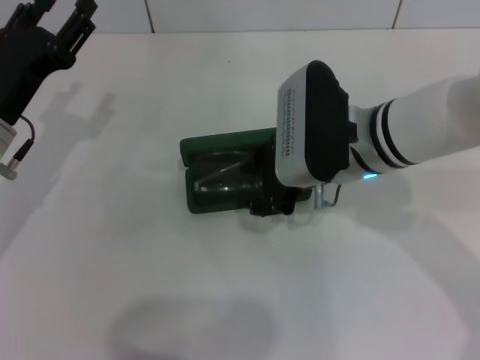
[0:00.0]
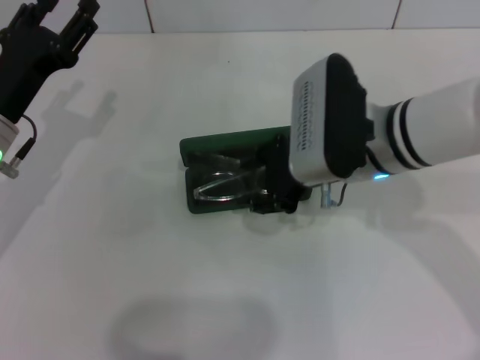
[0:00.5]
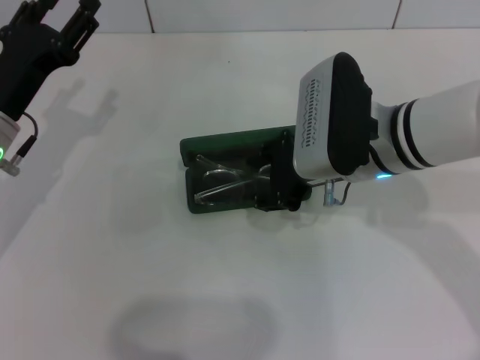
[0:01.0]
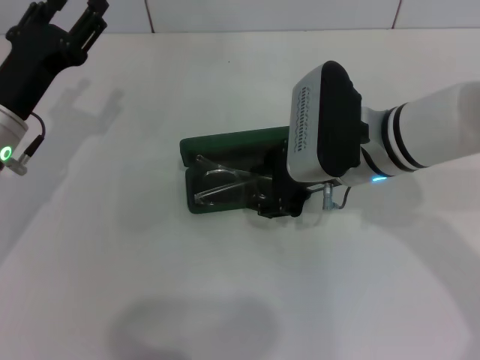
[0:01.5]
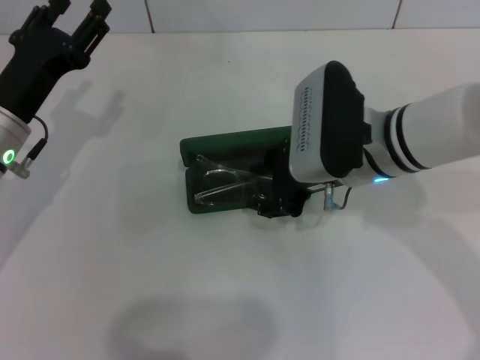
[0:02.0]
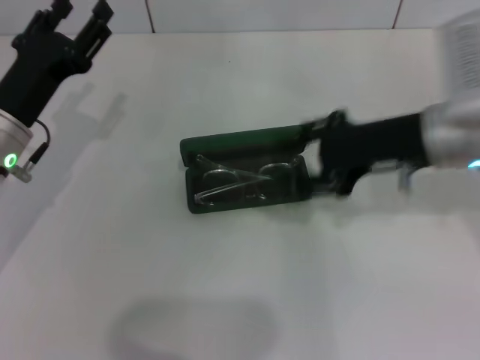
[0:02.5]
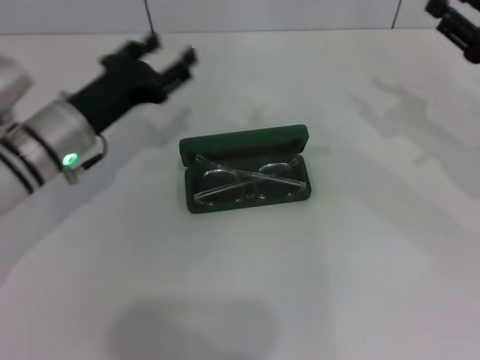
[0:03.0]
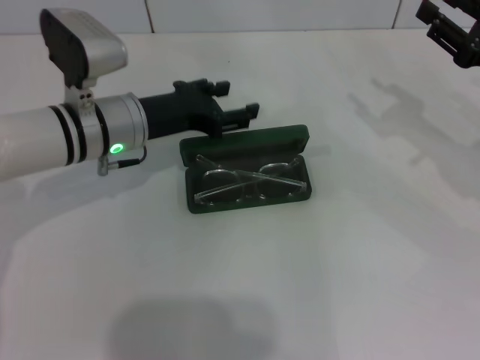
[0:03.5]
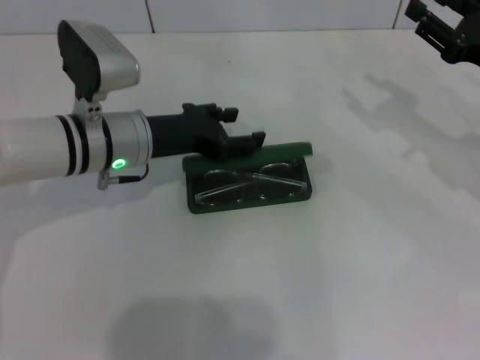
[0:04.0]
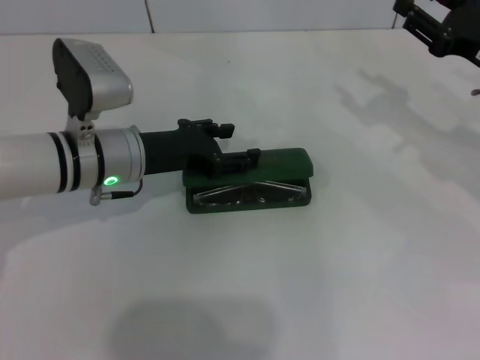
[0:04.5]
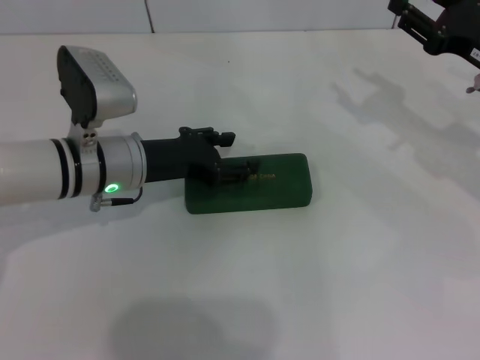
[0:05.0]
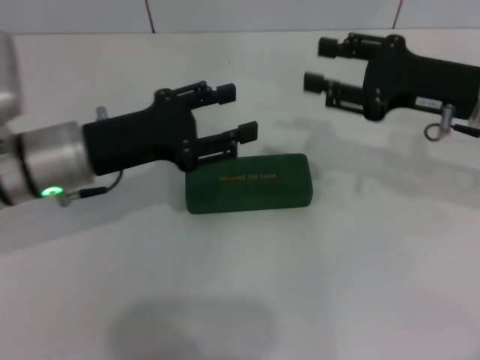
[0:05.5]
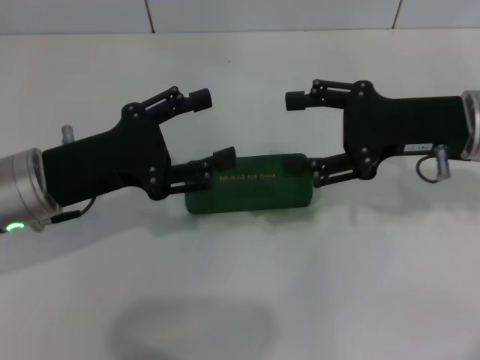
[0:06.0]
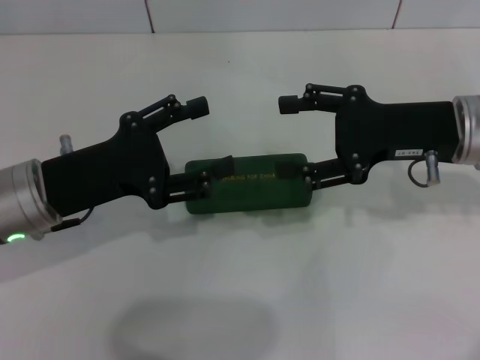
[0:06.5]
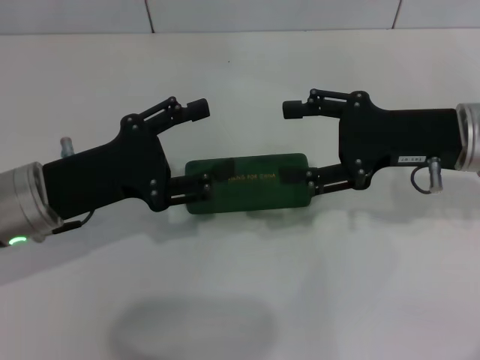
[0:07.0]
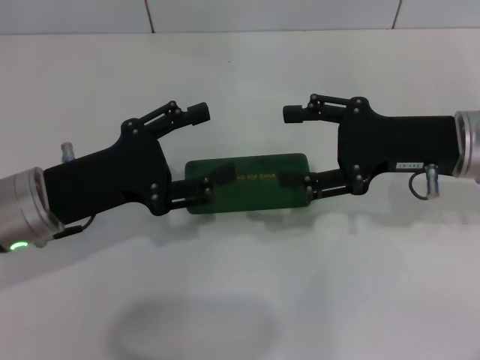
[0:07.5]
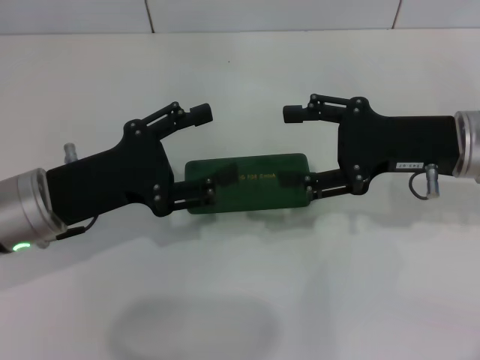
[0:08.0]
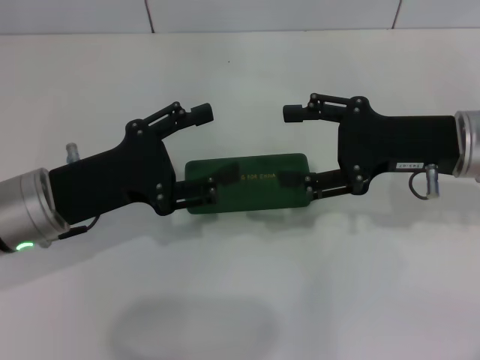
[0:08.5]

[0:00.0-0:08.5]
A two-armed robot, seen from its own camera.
Step, 0:01.0 to 0:04.5: Close the glasses case with your left hand.
0:00.0 to 0:02.0: The grippers make only small movements.
0:02.0 to 0:04.0: The right gripper goes roughly 20 cm to the right; the left gripper travels to the right by some 10 cm.
0:04.0 to 0:06.5: The right gripper moves to the left, roughly 10 cm, and opens. The left gripper heads backward and to the left, covering approximately 10 cm.
0:06.5 to 0:08.5: Both grippers stay about where they are.

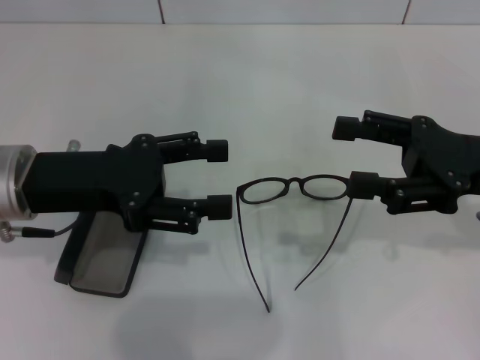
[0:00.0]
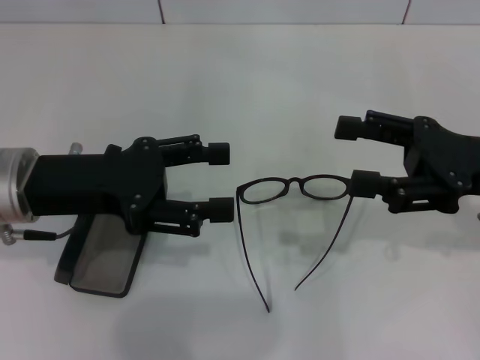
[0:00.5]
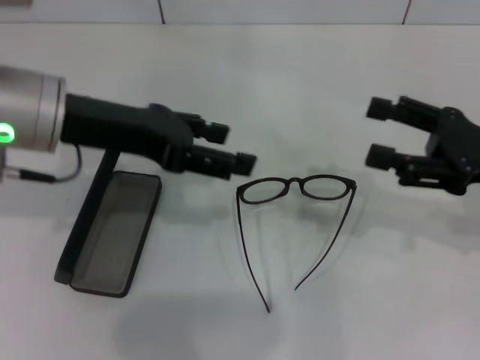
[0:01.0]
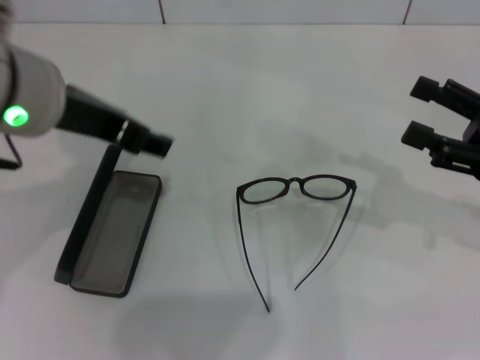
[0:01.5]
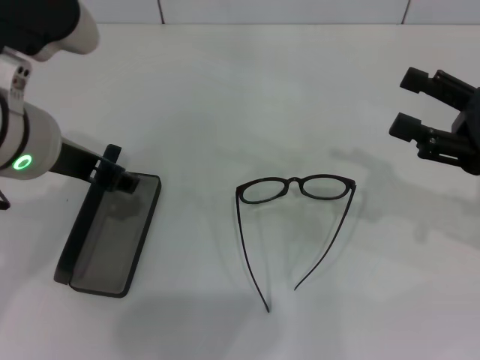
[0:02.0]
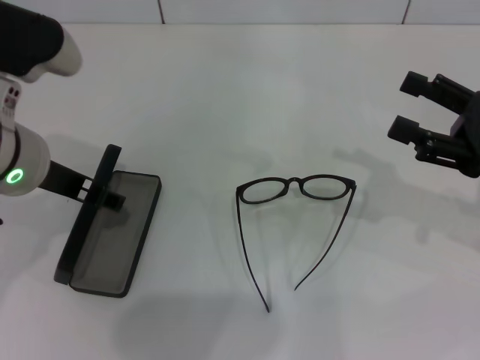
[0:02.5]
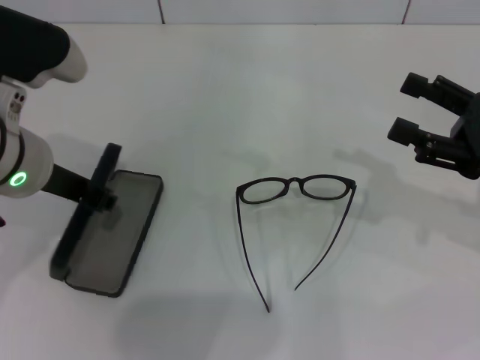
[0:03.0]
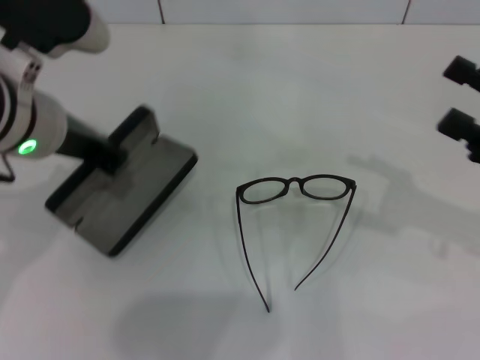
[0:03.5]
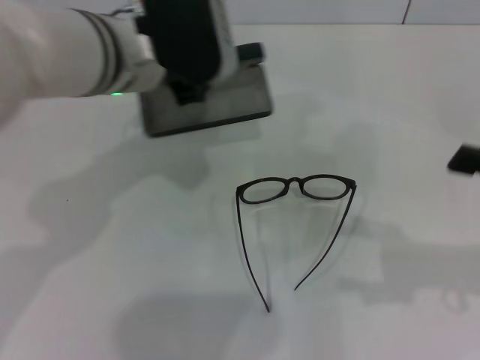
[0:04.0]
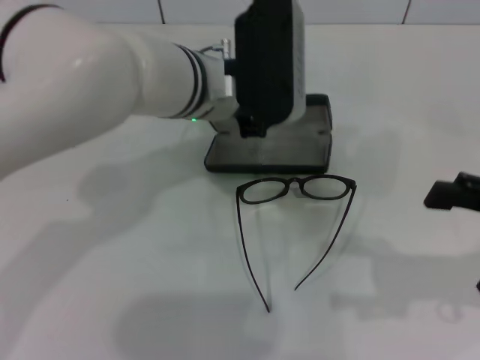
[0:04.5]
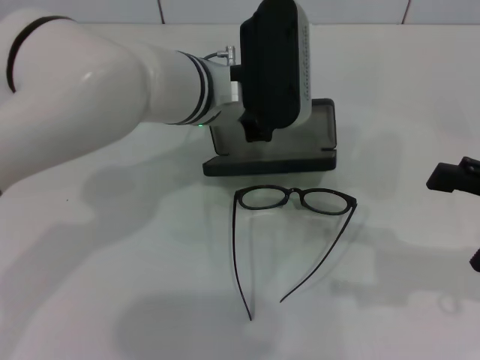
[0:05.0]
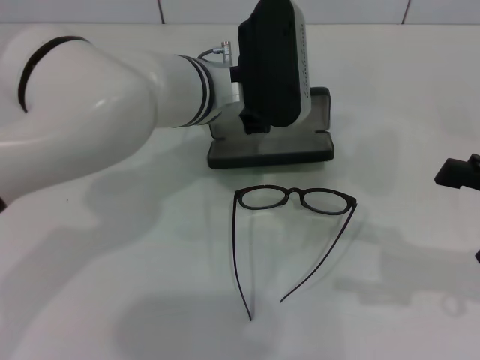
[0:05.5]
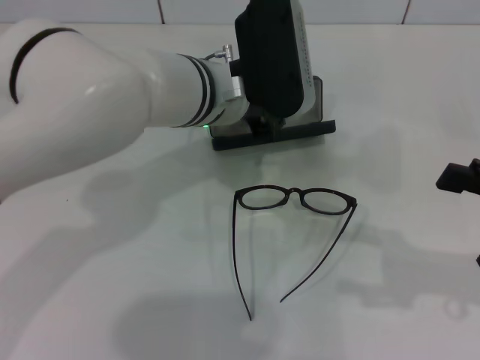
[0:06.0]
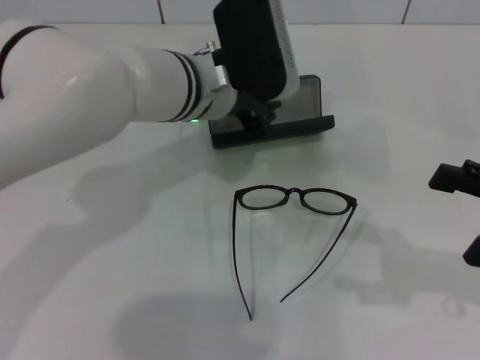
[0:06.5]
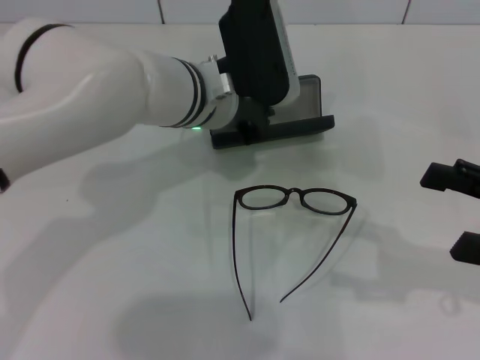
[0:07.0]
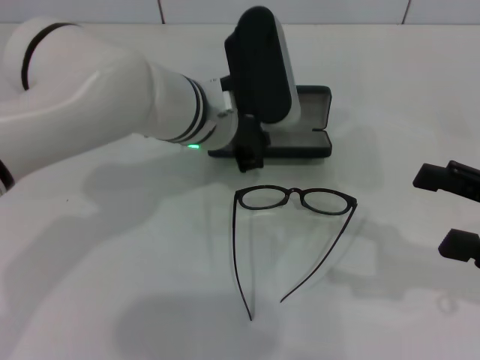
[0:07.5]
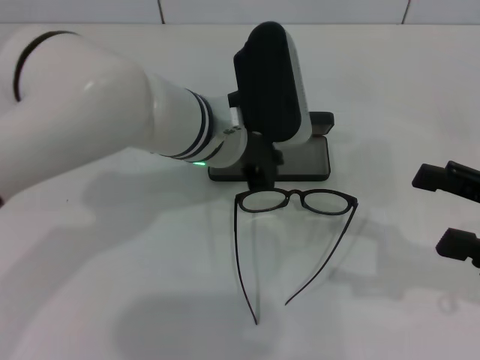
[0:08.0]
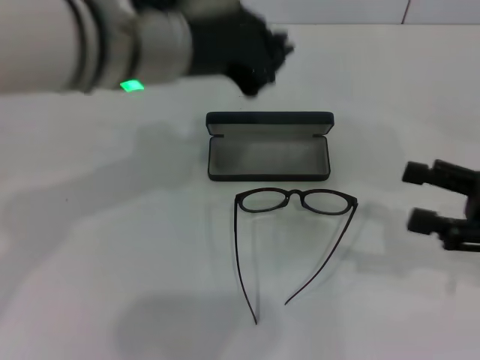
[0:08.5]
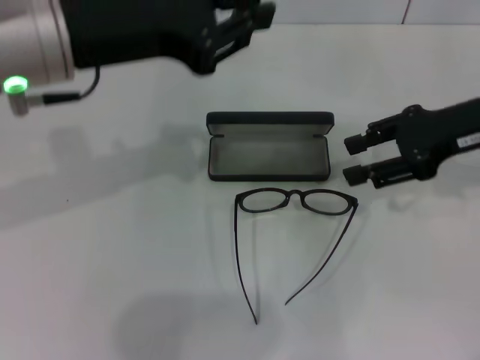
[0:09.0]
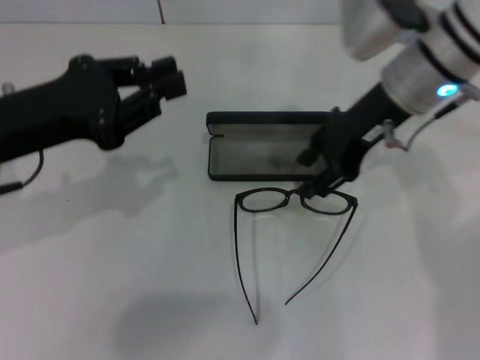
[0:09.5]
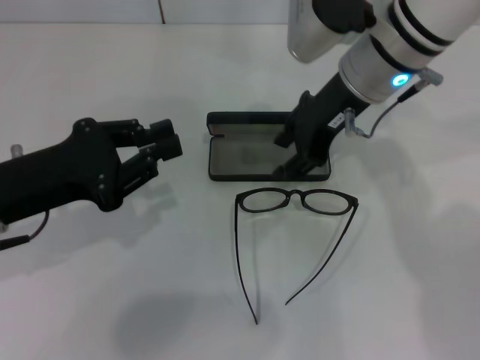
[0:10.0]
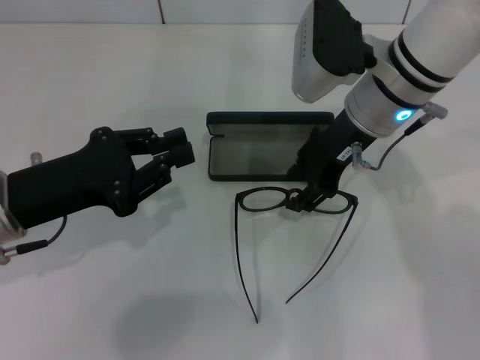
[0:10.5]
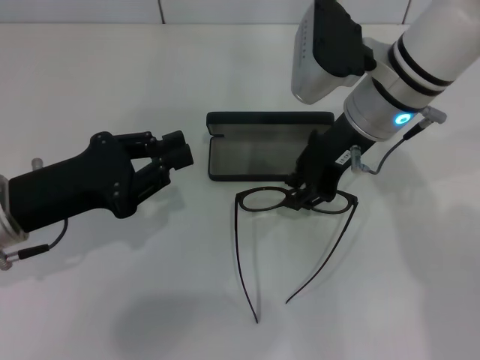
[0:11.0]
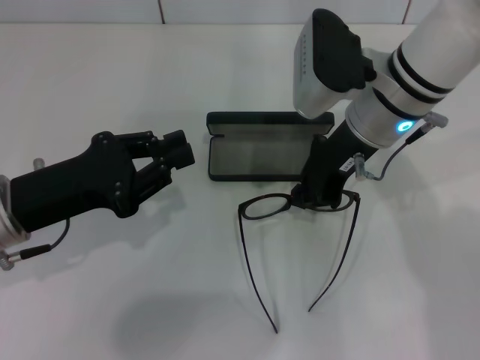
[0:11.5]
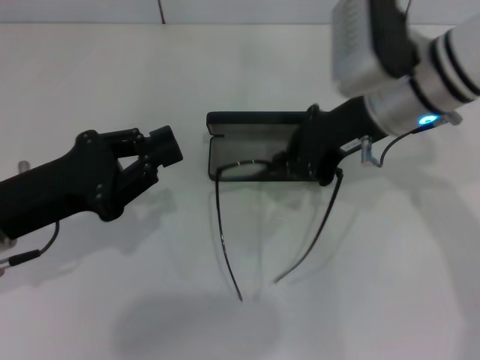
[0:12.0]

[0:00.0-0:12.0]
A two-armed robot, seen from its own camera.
Step, 0:00.0 to 0:03.0: Grab the glasses case with your left hand.
Step, 0:03.5 to 0:07.5: Place the glasses case in the center of the table with your left hand.
Step, 0:08.0 to 0:11.0: Grab the eyeglass frame with your right hand.
0:00.0 to 0:02.0: The left gripper is displaced upward and to the right by approximately 10 cm.
0:02.0 to 0:04.0: The left gripper heads forward and to the right, covering approximately 10 cm, and closes its fingers, while the right gripper moves backward, approximately 5 cm.
0:04.0 to 0:06.0: The left gripper travels to the right and downward by some 10 cm.
0:06.0 to 0:08.0: The grippers move only a little.
0:08.0 to 0:10.0: The right gripper travels to the left and forward by about 25 cm, and closes, while the left gripper travels to the left and backward by approximately 25 cm.
0:10.0 to 0:12.0: The right gripper closes its fingers.

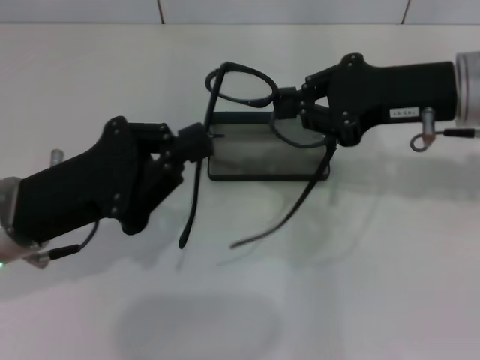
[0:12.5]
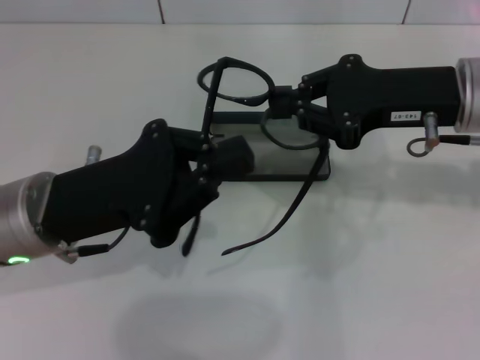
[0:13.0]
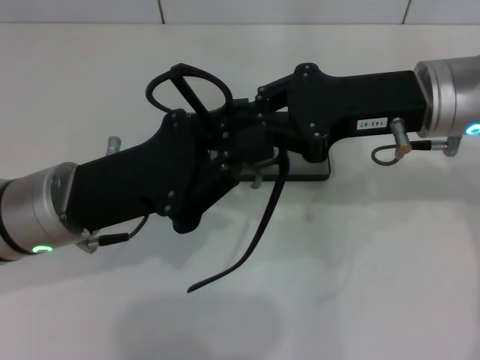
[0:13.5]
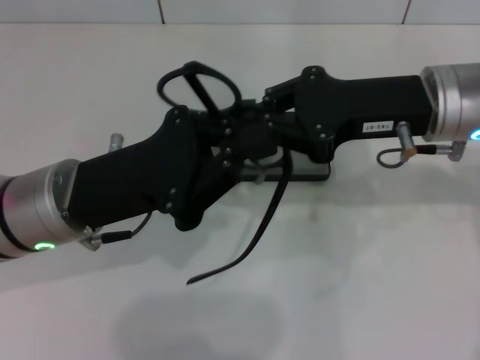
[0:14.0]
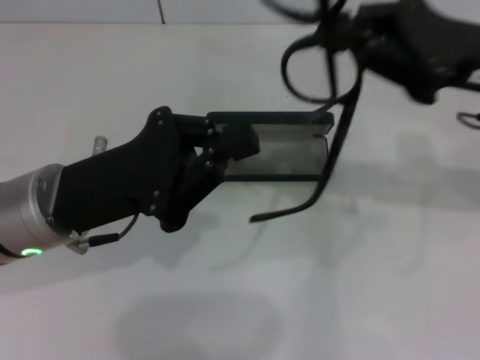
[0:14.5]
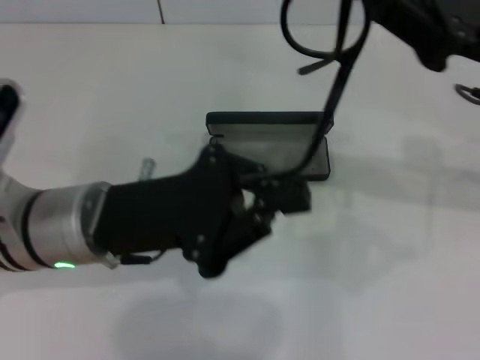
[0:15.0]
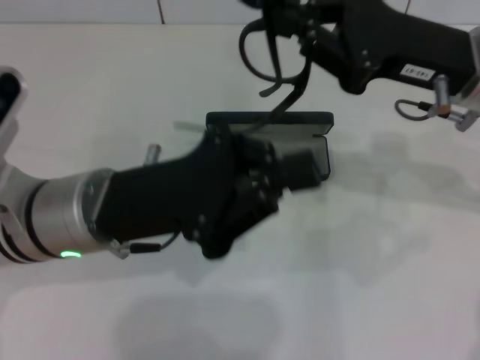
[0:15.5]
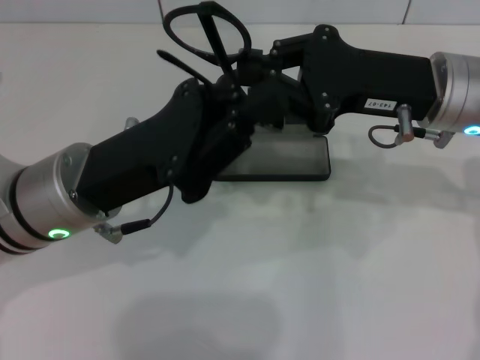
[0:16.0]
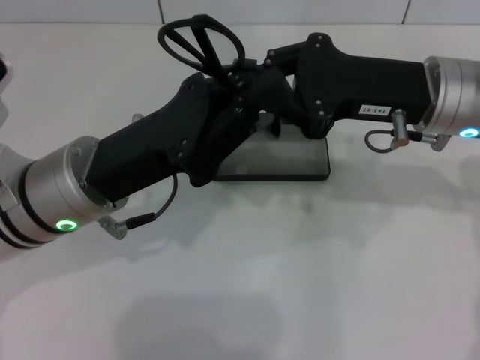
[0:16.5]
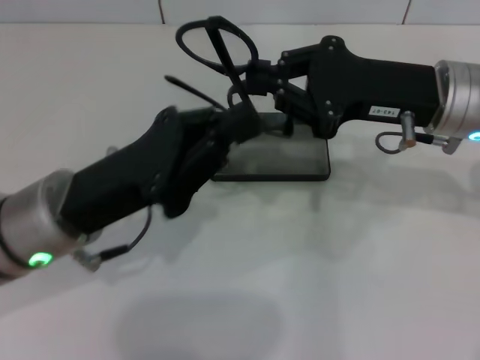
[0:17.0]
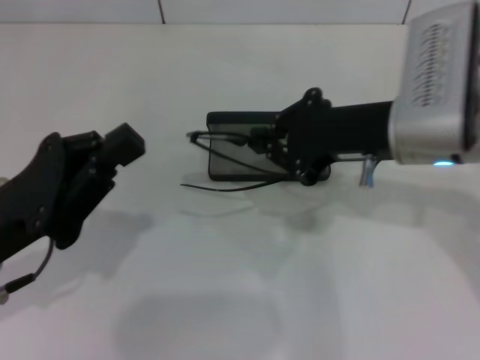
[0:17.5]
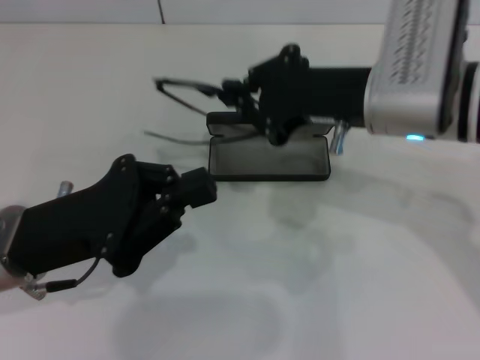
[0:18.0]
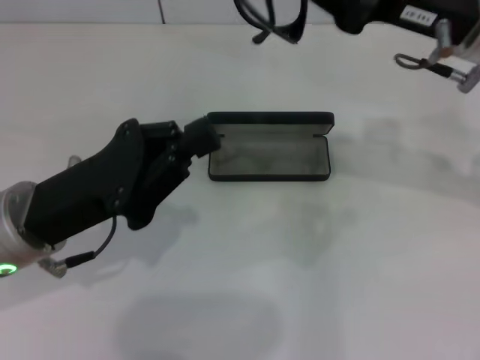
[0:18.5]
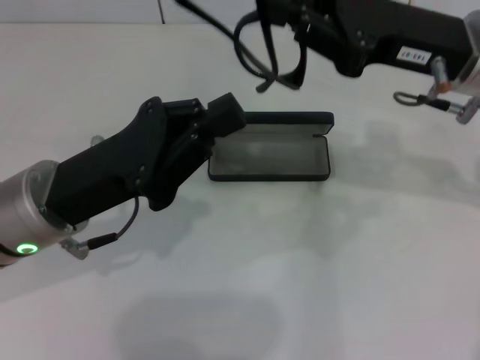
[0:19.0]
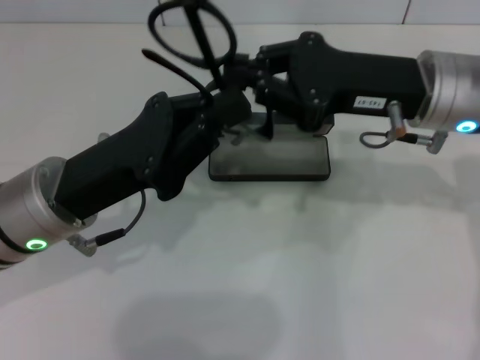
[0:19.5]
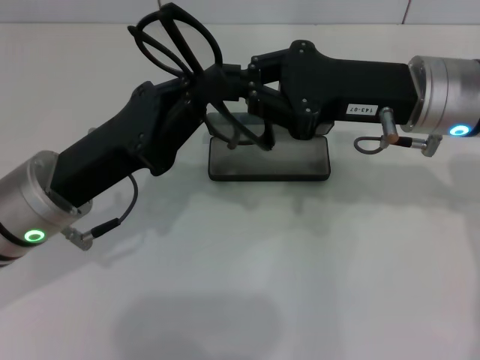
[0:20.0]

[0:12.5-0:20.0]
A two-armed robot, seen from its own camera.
0:14.5 to 0:16.5: The right gripper goes approximately 5 cm to the left.
0:16.5 to 0:18.0: The left gripper travels to the left by some 5 cm, while the right gripper ends up roughly 5 cm from where it was.
